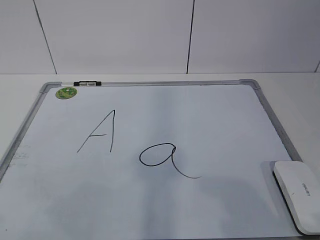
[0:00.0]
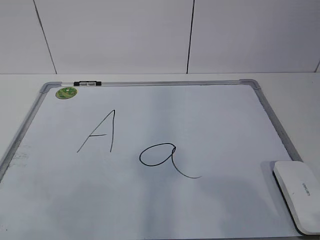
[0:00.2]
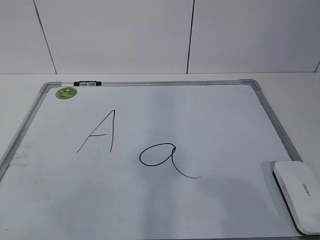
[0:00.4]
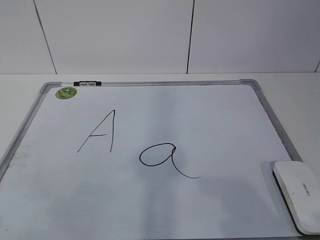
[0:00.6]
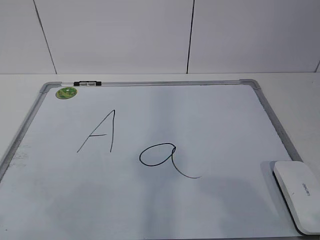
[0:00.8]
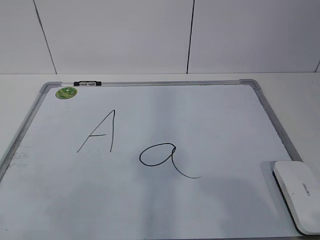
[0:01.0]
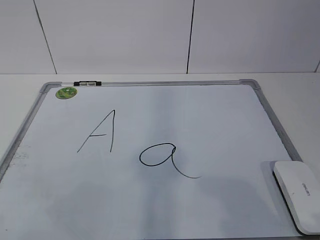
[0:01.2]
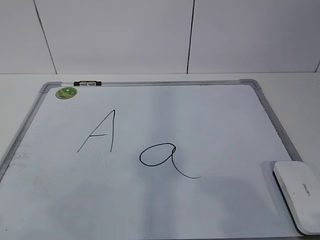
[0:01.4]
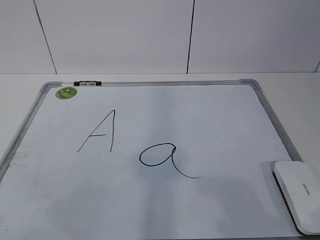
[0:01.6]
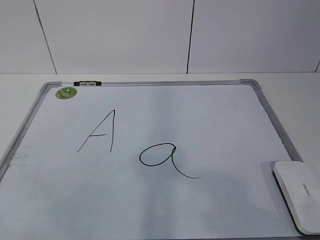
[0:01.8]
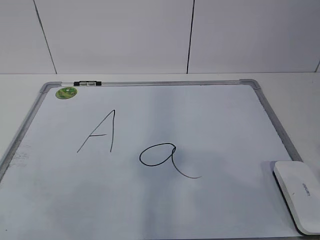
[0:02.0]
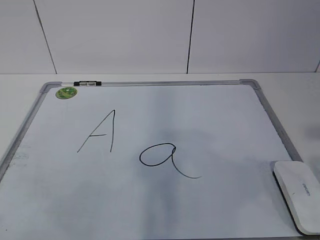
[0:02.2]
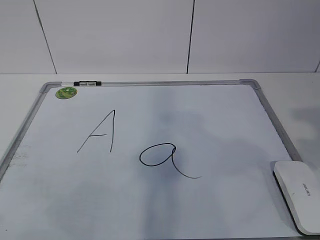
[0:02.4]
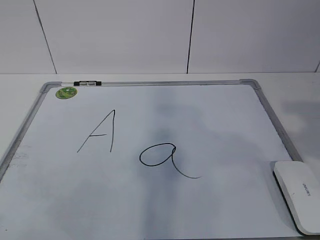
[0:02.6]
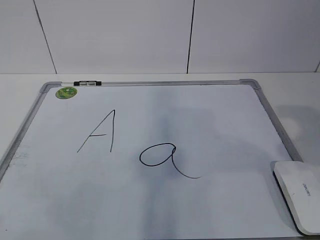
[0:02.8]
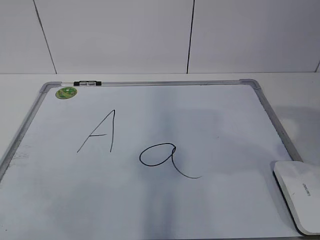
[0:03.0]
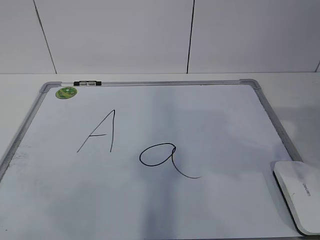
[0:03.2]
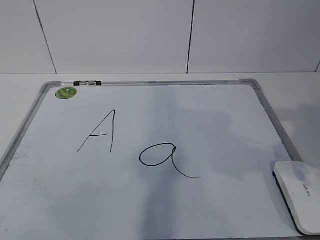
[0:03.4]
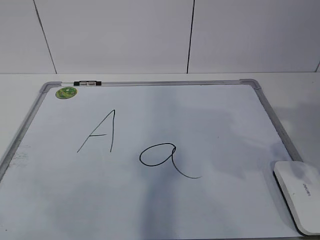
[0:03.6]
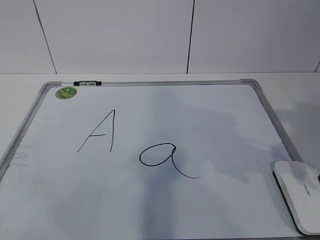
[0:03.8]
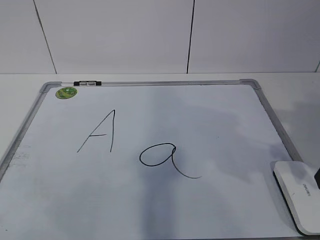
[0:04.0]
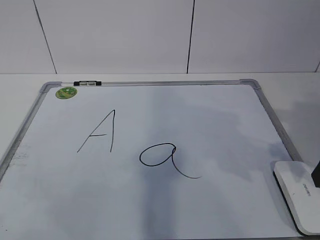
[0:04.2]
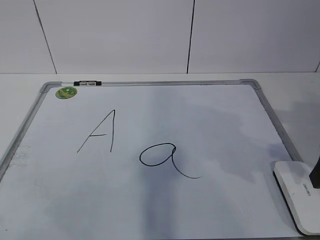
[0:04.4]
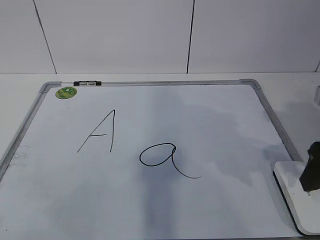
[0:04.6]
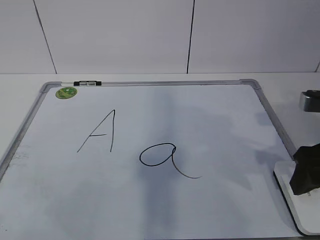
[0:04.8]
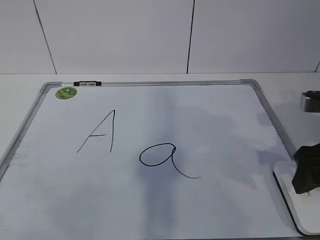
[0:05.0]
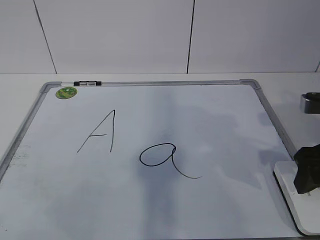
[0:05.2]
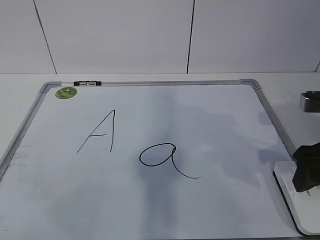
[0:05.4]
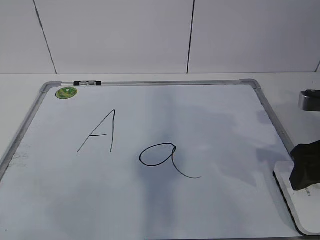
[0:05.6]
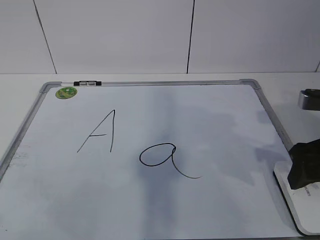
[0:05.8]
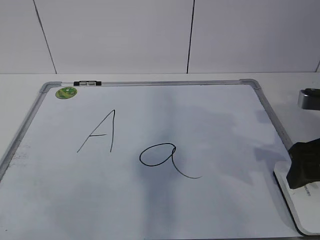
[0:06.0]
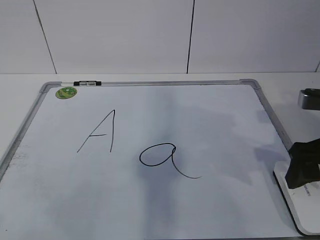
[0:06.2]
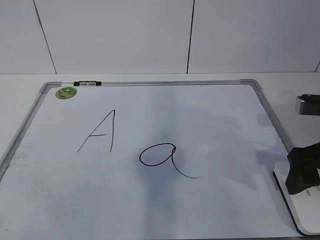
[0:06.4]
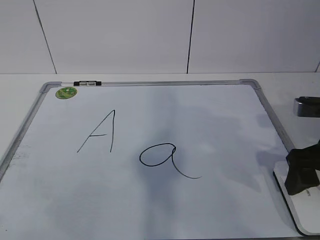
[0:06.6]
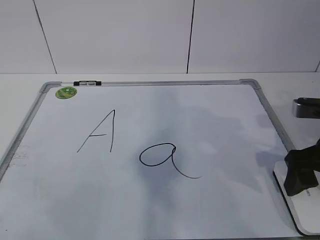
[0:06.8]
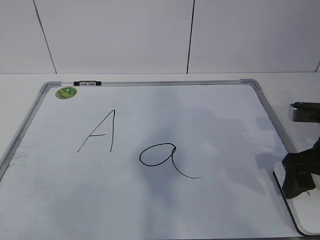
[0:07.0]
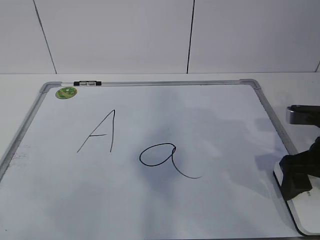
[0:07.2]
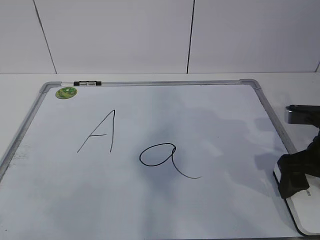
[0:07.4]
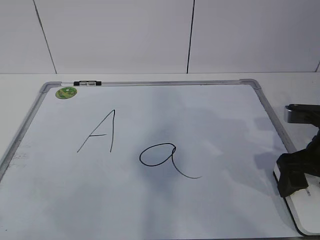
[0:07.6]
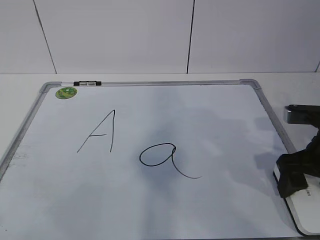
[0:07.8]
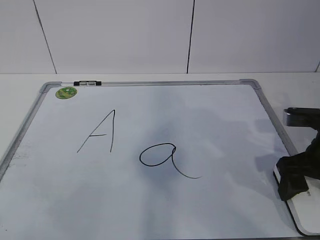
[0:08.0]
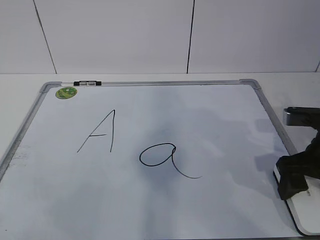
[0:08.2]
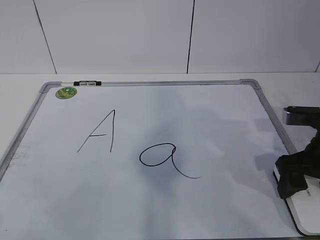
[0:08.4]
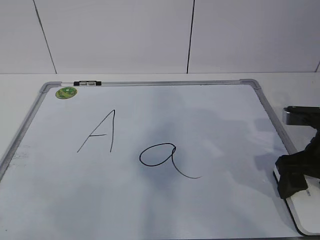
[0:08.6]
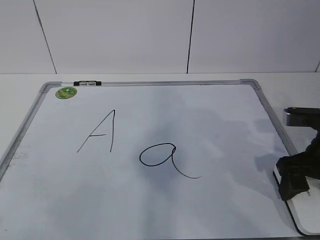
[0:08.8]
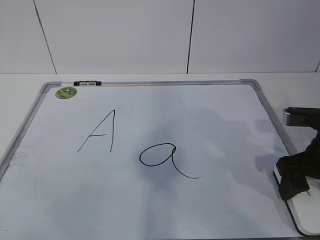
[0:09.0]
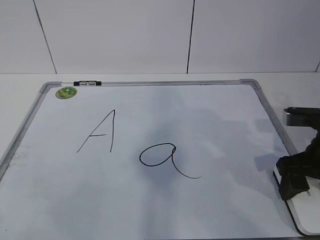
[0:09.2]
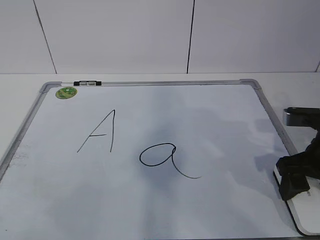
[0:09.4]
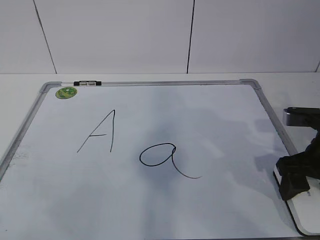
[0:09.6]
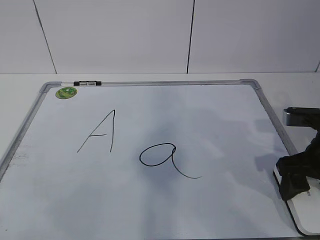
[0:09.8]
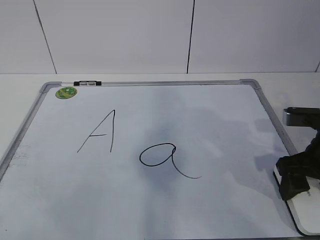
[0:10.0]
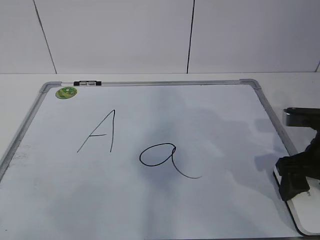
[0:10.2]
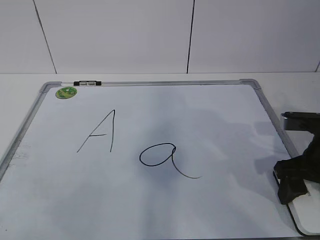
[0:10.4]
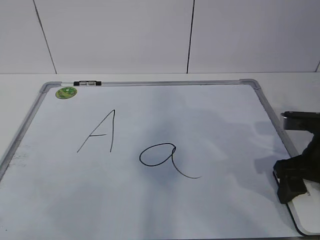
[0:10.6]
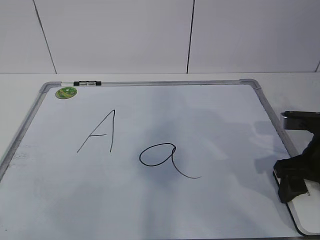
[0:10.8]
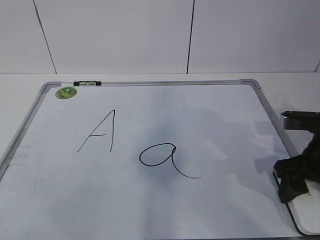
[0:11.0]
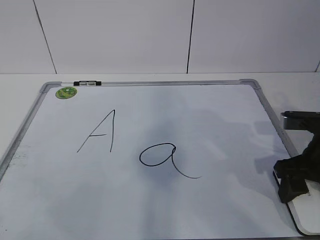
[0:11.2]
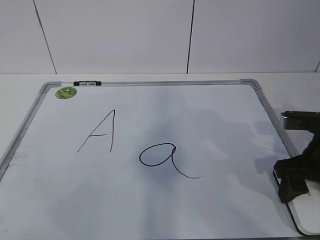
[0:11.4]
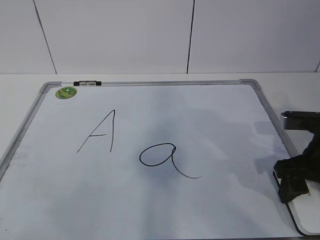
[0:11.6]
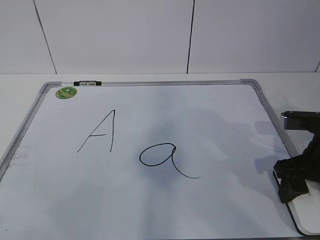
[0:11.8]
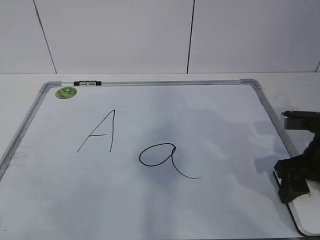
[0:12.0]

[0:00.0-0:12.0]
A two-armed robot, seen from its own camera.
Task of the whole recording: pick up the eraser on the blackboard and erase the letter "a".
Step, 0:00.0 to 0:09.0: Grab the eraser with your right hand.
0:04.4 to 0:06.0: There are only small adjustments of the grippers.
0:06.0 to 0:07.6: The right gripper opens its fingers.
0:07.6 to 0:09.0: The right gripper closes.
0:09.0 to 0:10.4: Both grippers stay about where they are.

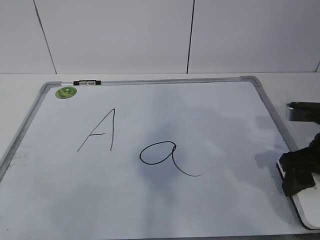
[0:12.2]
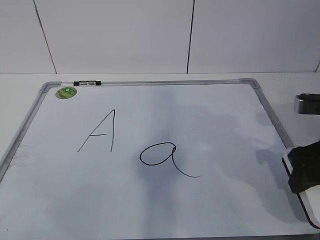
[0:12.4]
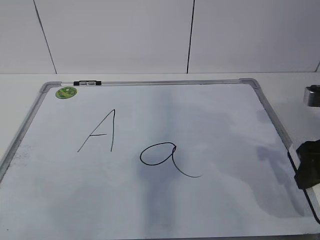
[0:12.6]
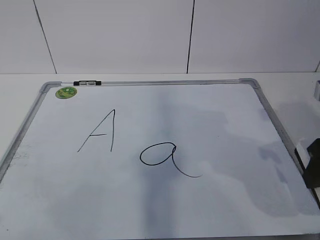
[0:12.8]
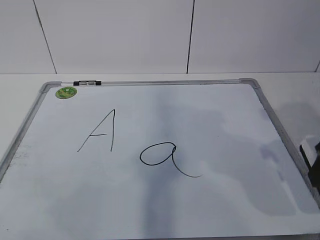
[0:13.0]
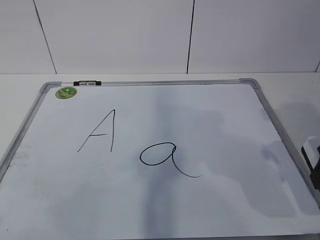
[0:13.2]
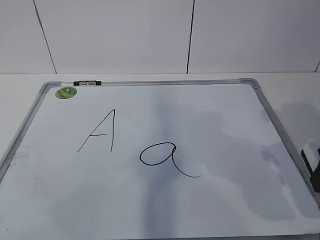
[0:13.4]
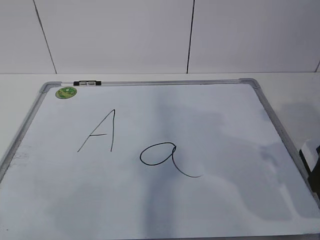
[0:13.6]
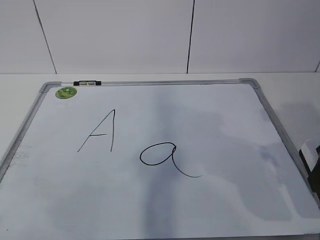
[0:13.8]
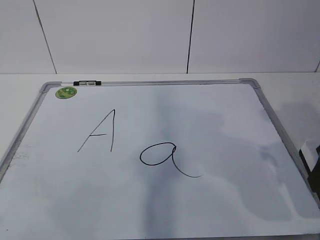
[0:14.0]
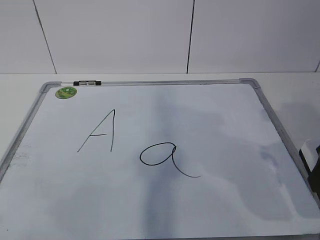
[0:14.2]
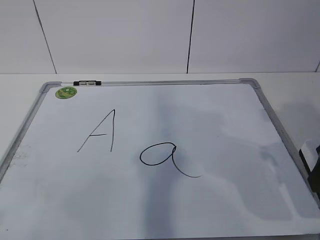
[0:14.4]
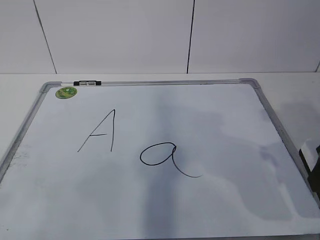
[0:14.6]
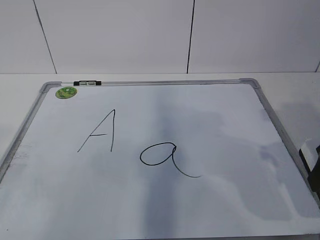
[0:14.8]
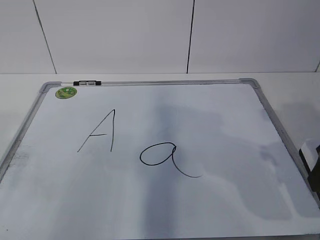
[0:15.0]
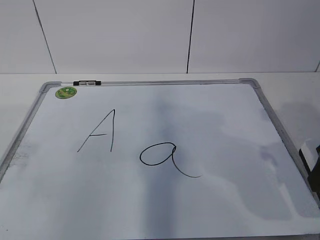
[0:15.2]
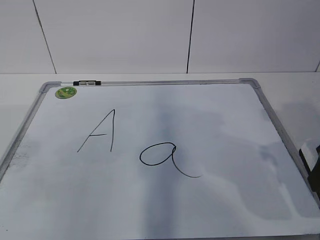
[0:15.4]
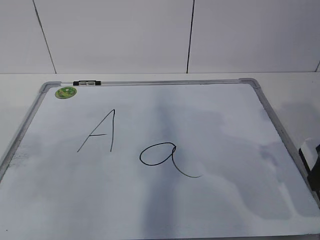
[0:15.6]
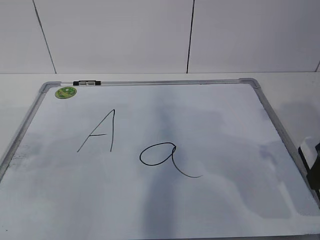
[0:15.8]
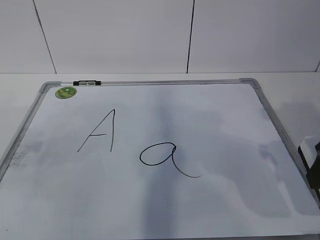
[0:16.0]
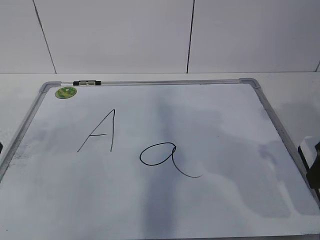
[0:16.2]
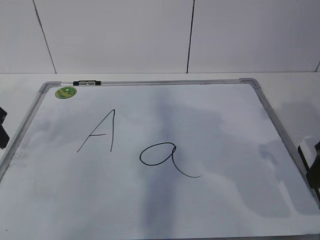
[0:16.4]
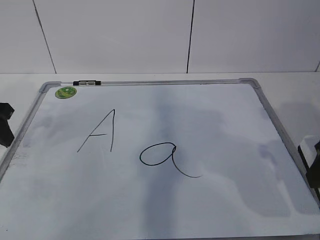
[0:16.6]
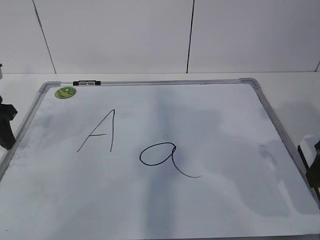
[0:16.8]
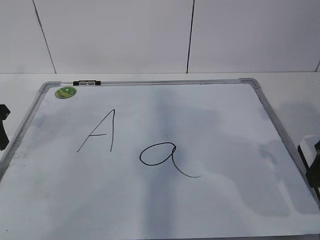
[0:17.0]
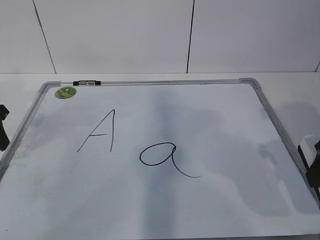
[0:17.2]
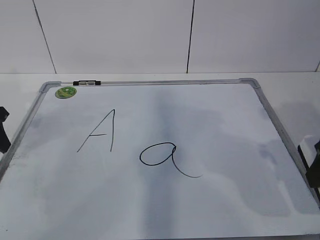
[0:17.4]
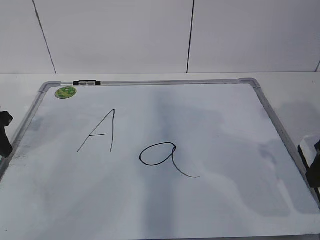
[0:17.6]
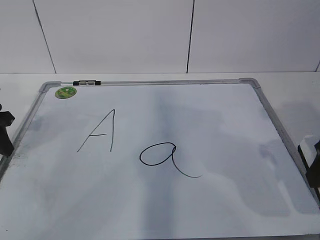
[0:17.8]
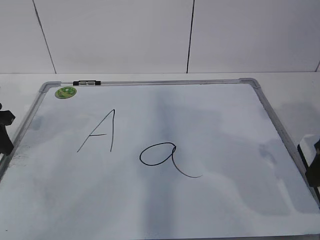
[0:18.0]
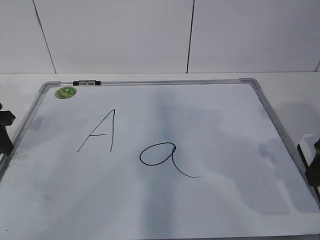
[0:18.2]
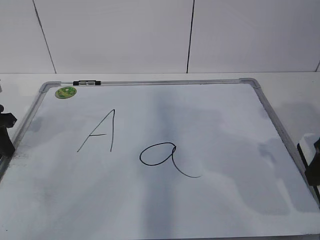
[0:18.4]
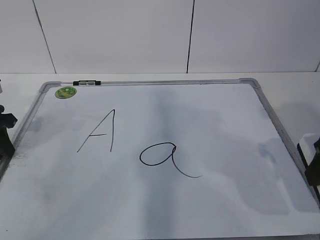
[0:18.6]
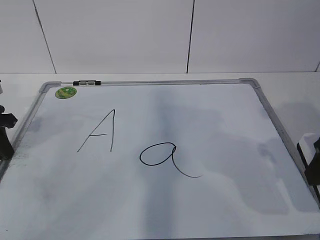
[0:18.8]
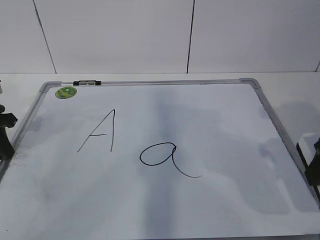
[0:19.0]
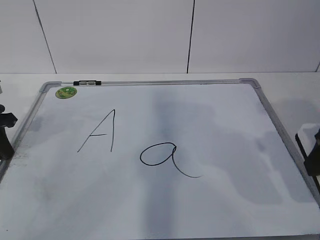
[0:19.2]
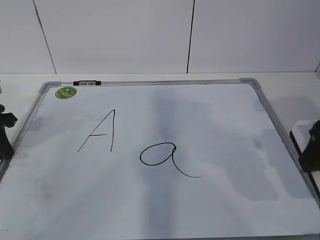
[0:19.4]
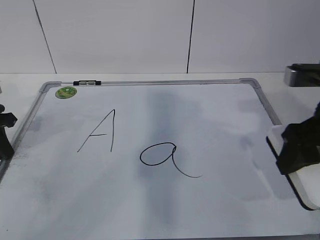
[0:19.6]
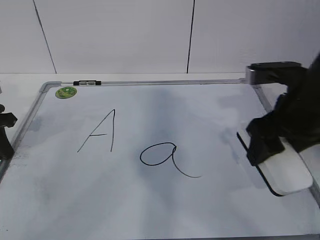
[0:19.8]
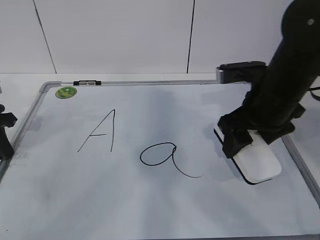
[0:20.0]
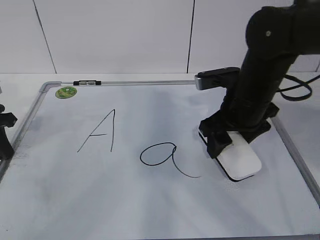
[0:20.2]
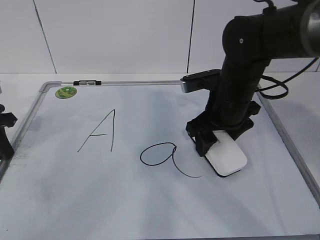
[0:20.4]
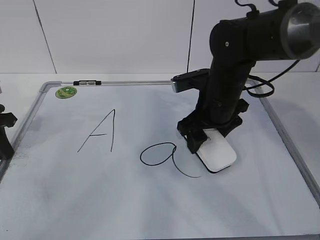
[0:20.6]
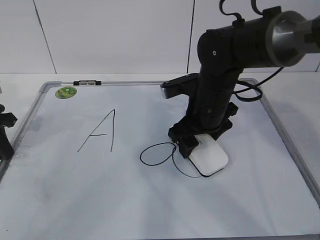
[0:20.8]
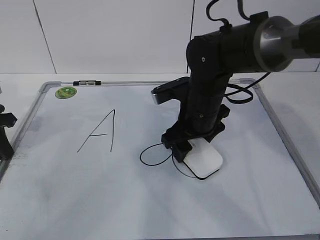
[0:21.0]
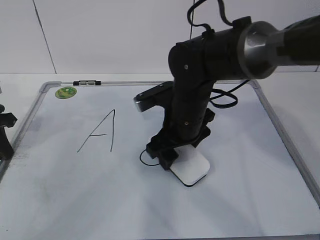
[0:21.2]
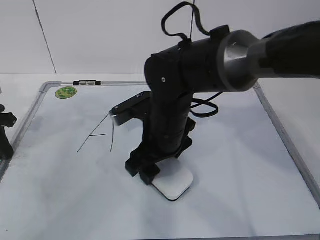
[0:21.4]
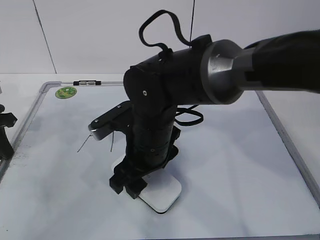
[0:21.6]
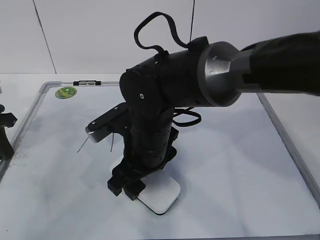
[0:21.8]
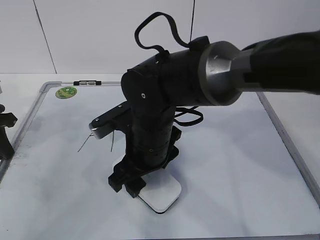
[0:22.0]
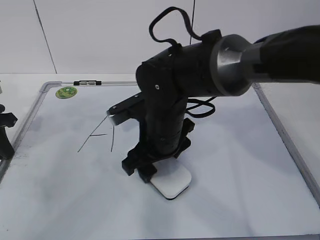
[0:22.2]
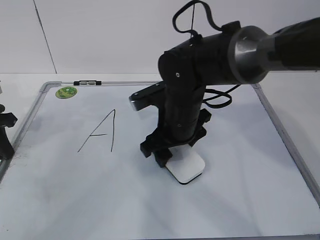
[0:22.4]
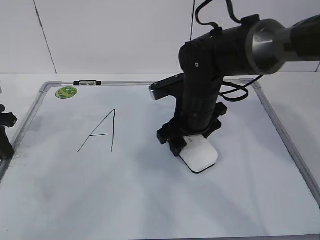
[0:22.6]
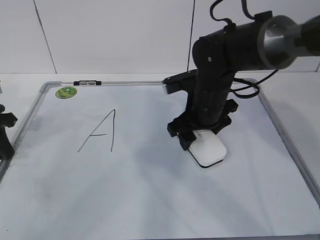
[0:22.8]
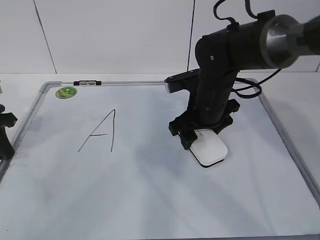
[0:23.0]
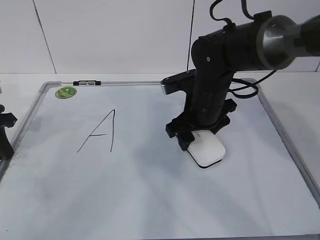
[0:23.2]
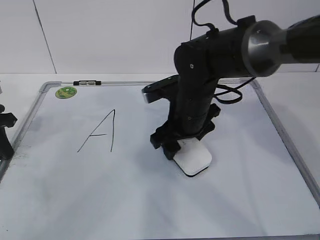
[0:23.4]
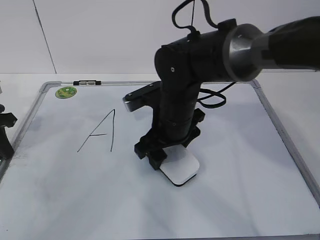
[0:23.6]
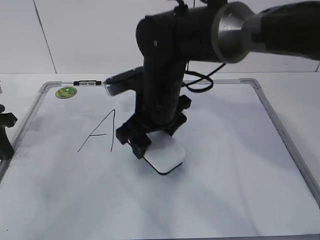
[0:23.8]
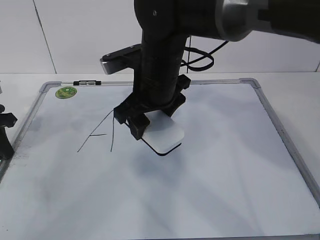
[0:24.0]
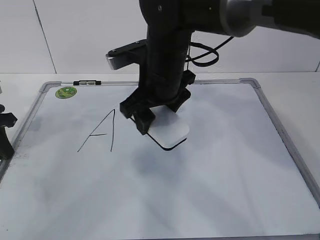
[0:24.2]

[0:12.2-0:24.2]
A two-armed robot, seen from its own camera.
Task of the whole recording: pick up the eraser on the blackboard and erase the letter "a".
Step, 0:12.2 to 0:15.4: Hold the drawing board steady with your left hand.
Step, 0:19.6 to 0:22.6: Put down the eraser with your right hand.
0:12.2 to 0:13.8: The right gripper travels upward and backward by about 10 cm.
0:15.2 to 0:16.6: The left gripper travels forward and downward by about 20 cm.
0:16.6 to 0:18.2: The left gripper ends up some 5 cm from where it was, and closes up.
0:18.2 to 0:19.8: The right gripper shifts roughly 10 cm forward and to the left.
0:19.8 to 0:21.2: The right gripper shifts approximately 15 cm to the left and downward.
0:22.6 to 0:24.2: The right gripper heads upward and to the left, covering roughly 10 cm.
